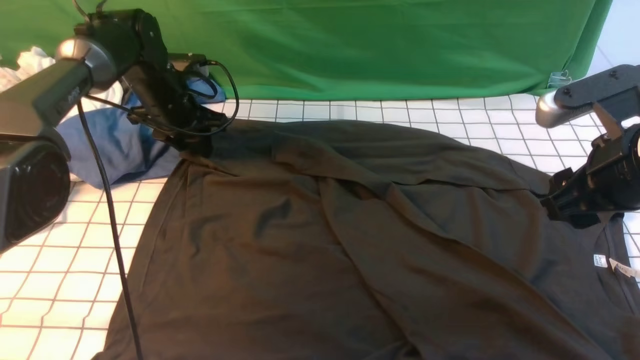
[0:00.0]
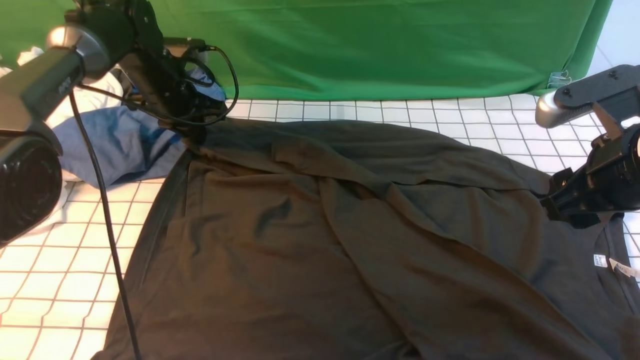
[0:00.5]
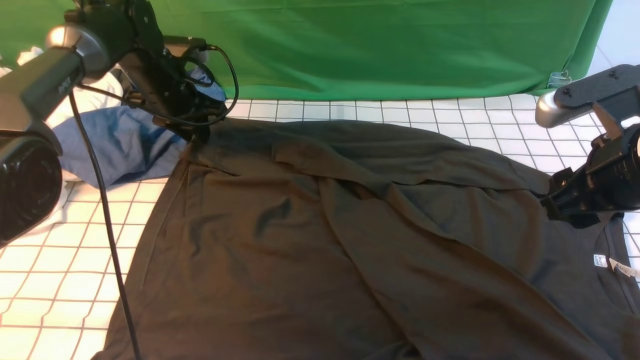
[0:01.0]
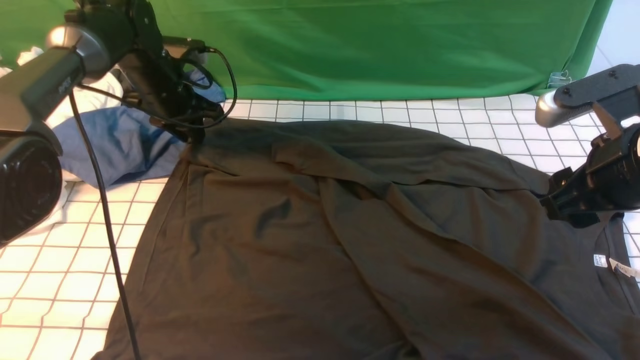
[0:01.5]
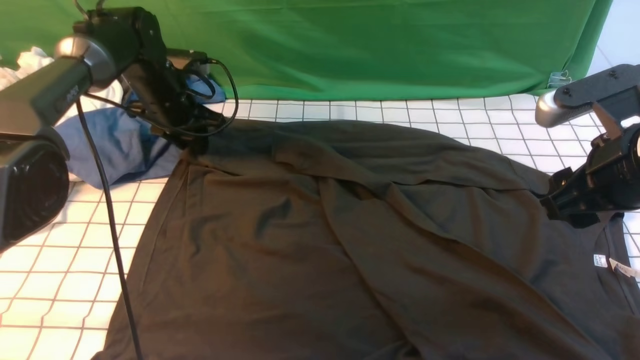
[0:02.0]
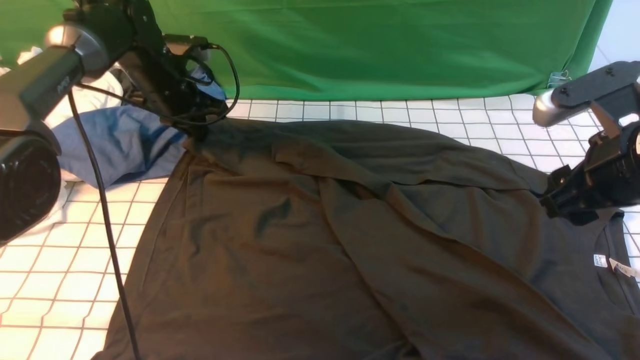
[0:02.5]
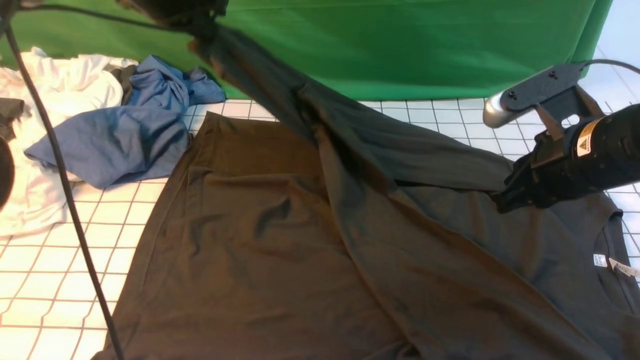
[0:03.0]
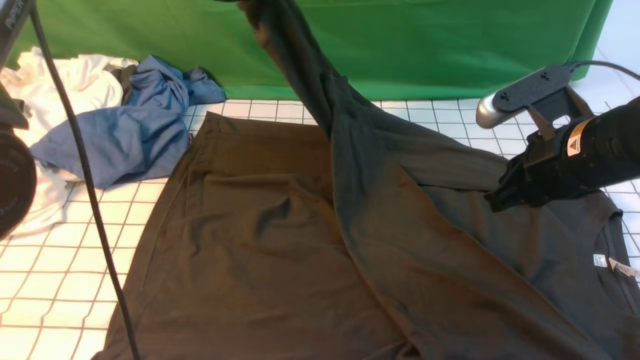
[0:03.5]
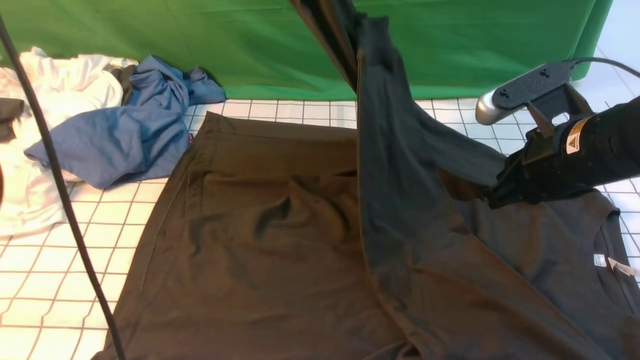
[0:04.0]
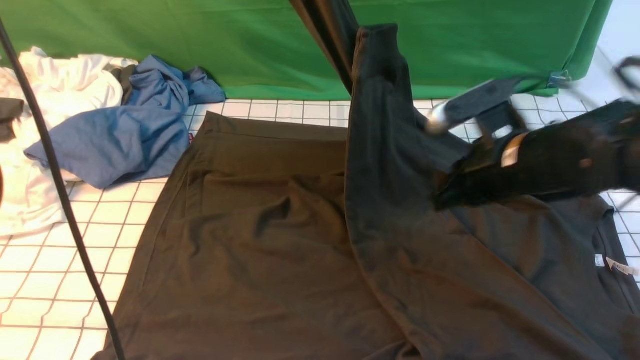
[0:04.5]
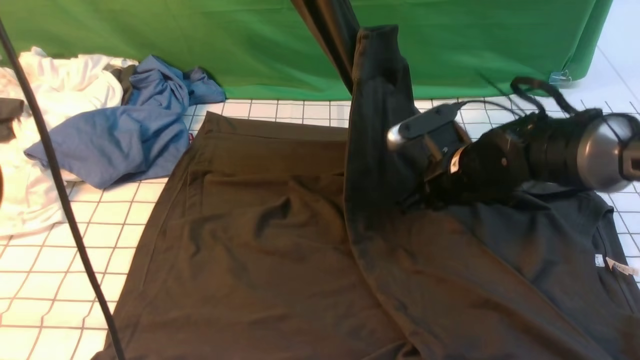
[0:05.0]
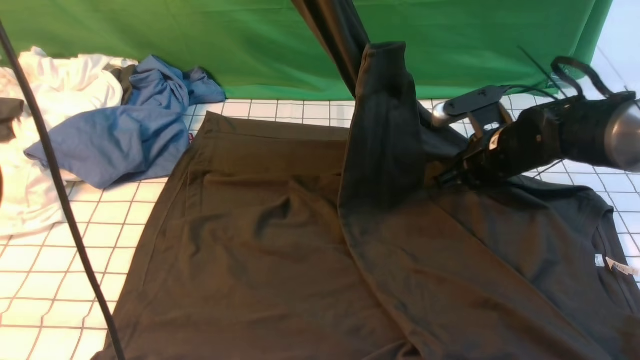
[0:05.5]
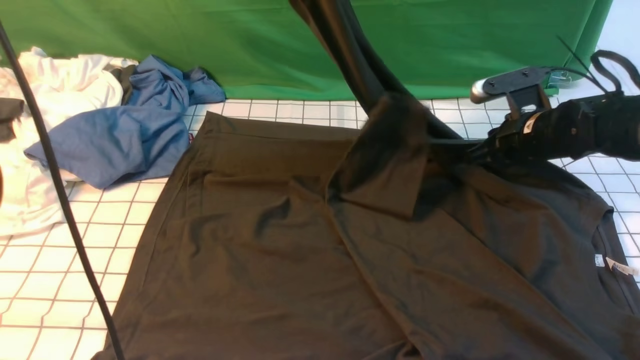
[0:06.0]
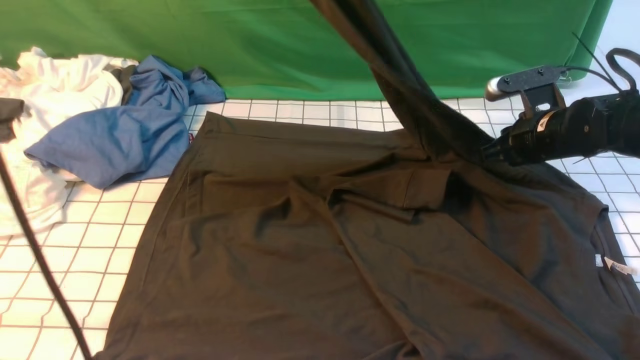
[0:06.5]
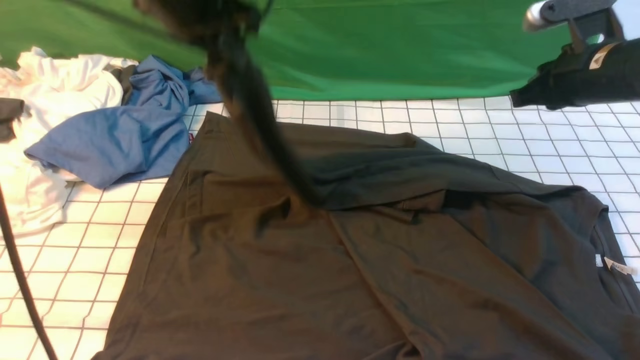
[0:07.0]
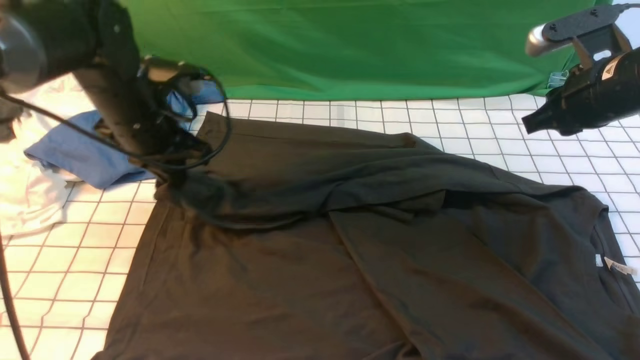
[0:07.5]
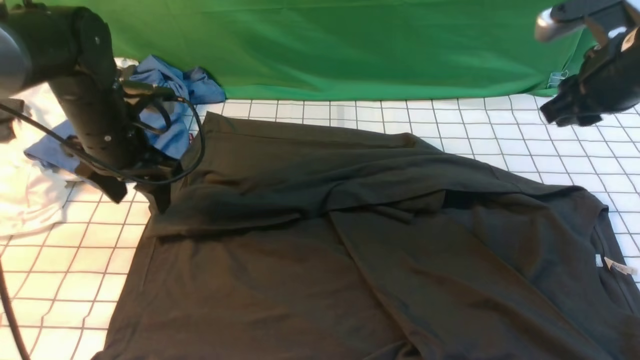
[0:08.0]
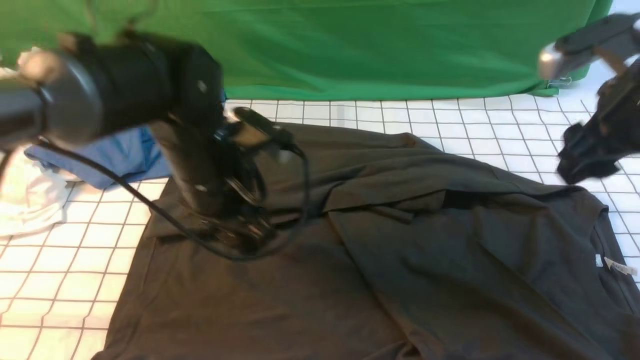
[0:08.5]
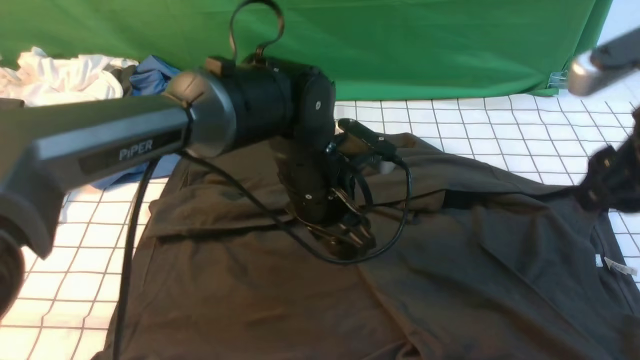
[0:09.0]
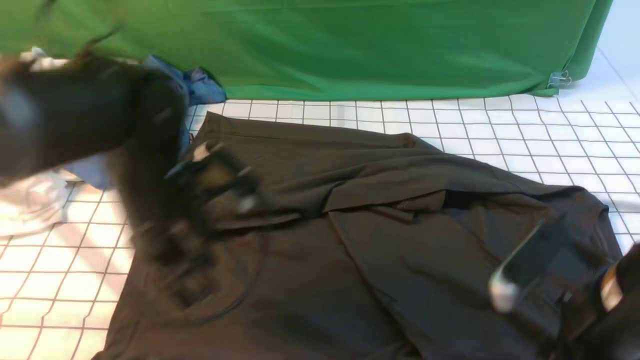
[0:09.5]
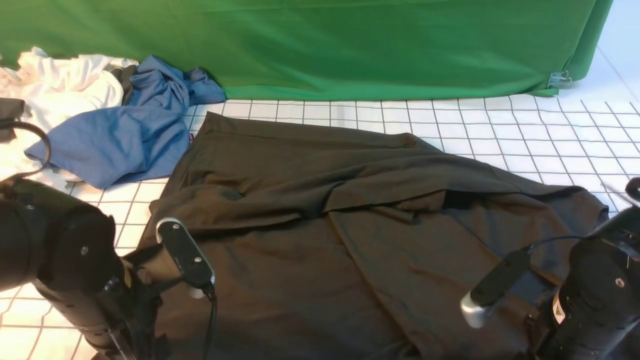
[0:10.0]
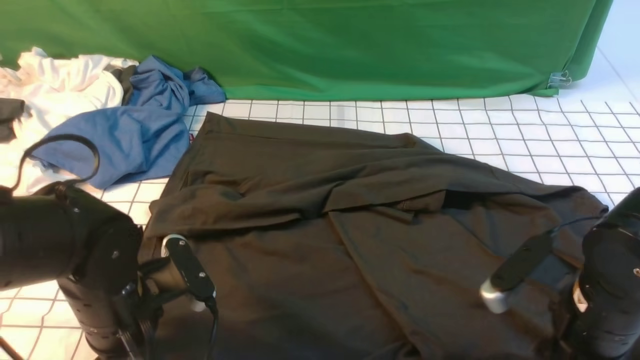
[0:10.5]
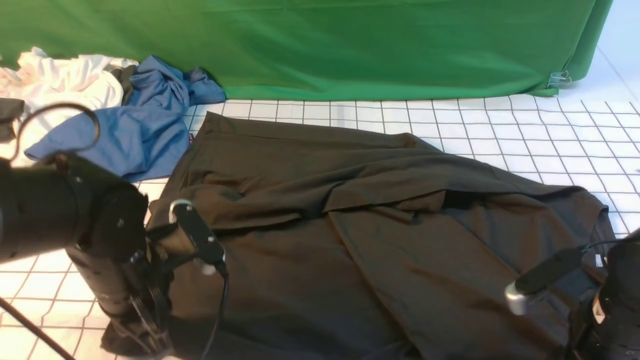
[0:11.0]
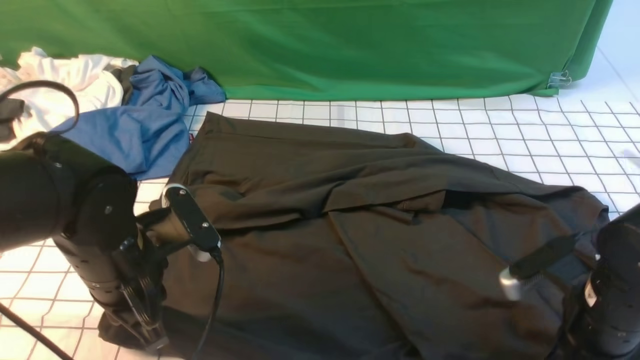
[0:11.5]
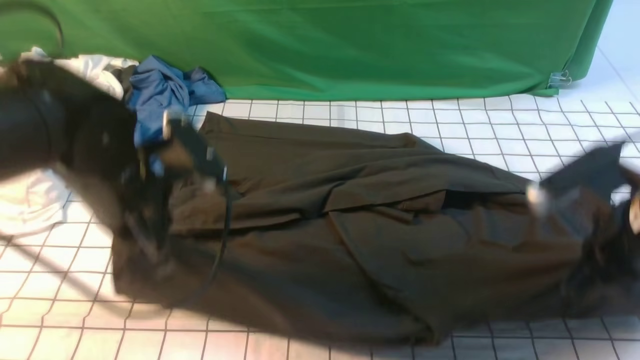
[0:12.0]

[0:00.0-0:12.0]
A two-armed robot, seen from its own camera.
Step, 0:00.0 to 0:02.5: use the left arm to clamp the cuff farthest from it.
Step, 0:03.0 to 0:08.0: use the left arm to drag and drop the cuff onto the cuff closest to the left arm.
Step, 0:08.5 to 0:11.5: use both arms simultaneously to clamp the lower edge of the clothing fabric.
0:00.0 to 0:02.0: The grippers make only small movements.
0:02.0 to 0:04.0: The left gripper shifts approximately 30 cm upward, and closes up; the right gripper moves some 5 cm, and closes its fingers.
0:04.0 to 0:06.0: The right gripper goes approximately 15 cm forward and downward.
0:06.0 to 0:08.0: The right gripper travels upward and backward by roughly 15 cm. The left gripper heads downward, covering some 25 cm, and opens its fingers.
0:08.0 to 0:10.0: The right gripper travels backward, downward and to the left by roughly 25 cm, and opens its fingers, while the left gripper moves backward, approximately 15 cm, and travels to the right and back again, approximately 20 cm each way.
0:10.0 to 0:12.0: Both grippers move upward and forward, approximately 10 cm. The left gripper closes its fingers, while the right gripper closes.

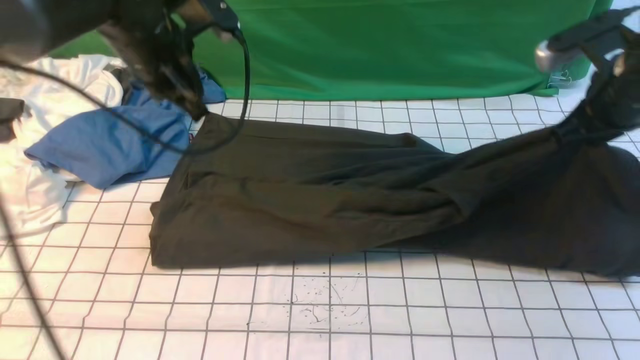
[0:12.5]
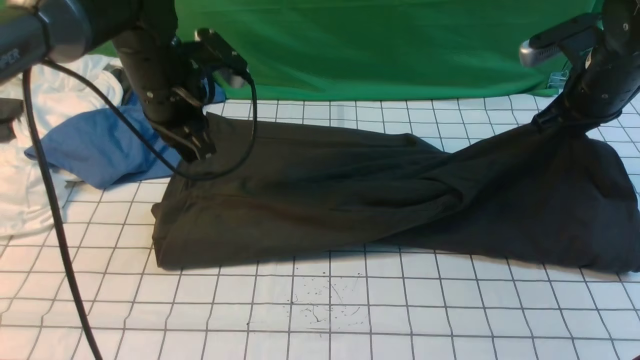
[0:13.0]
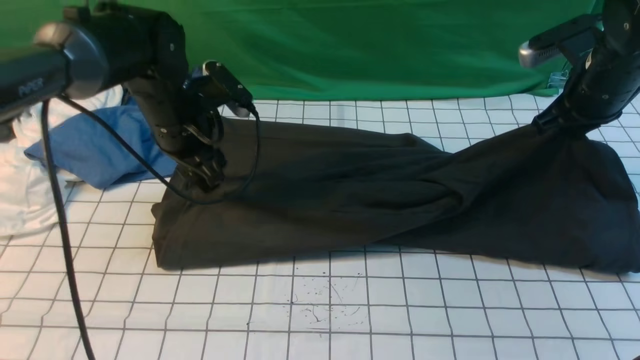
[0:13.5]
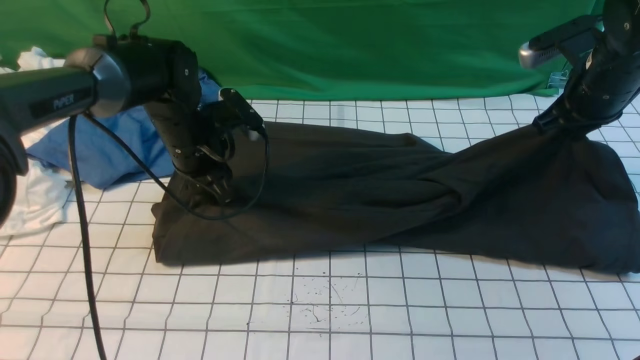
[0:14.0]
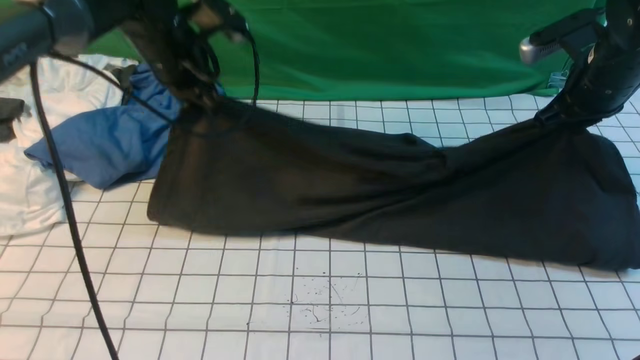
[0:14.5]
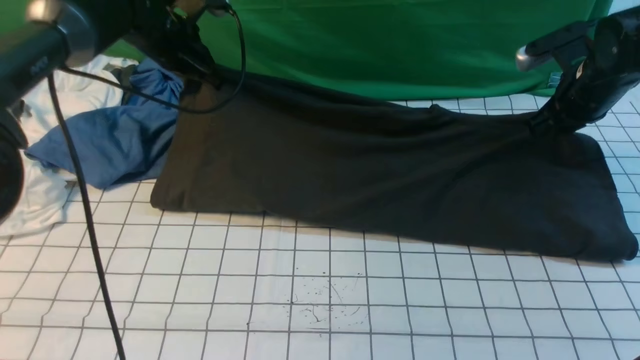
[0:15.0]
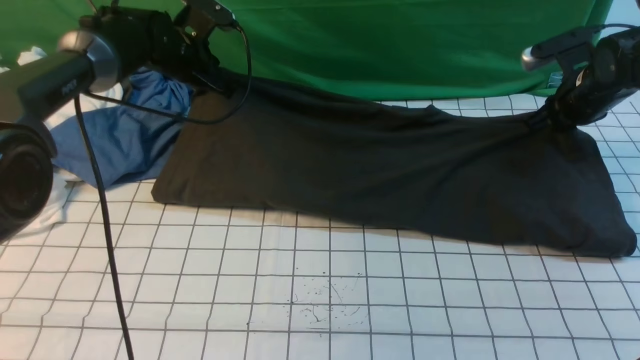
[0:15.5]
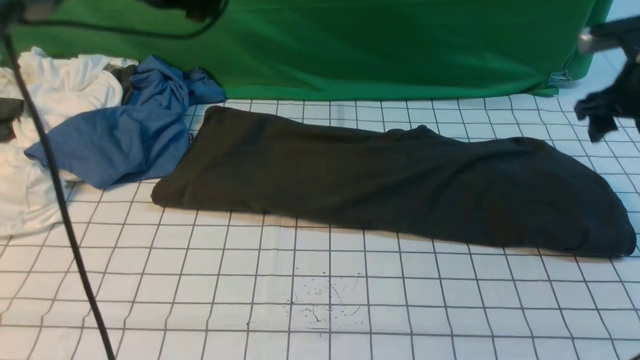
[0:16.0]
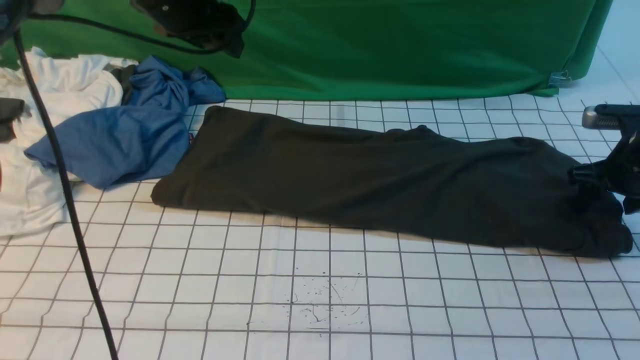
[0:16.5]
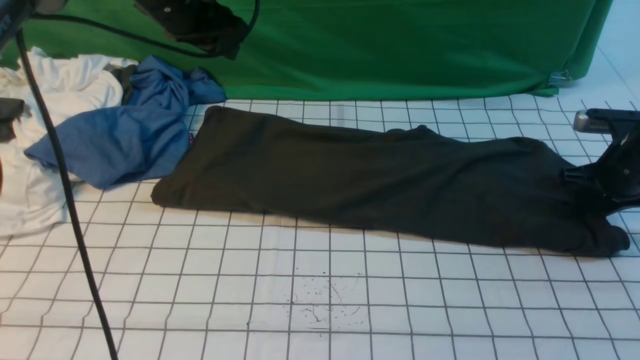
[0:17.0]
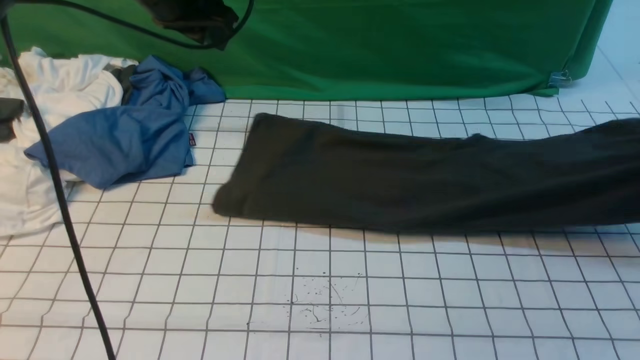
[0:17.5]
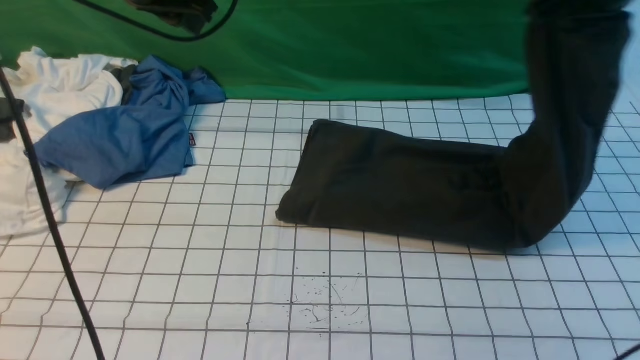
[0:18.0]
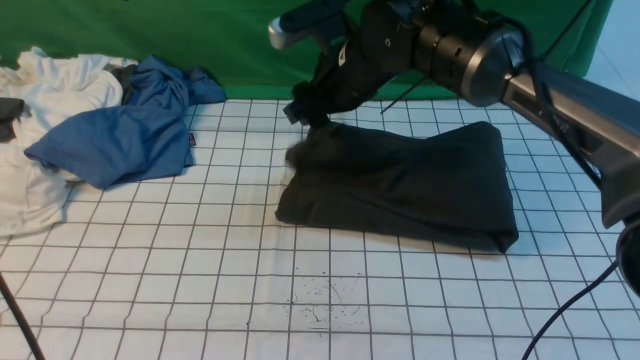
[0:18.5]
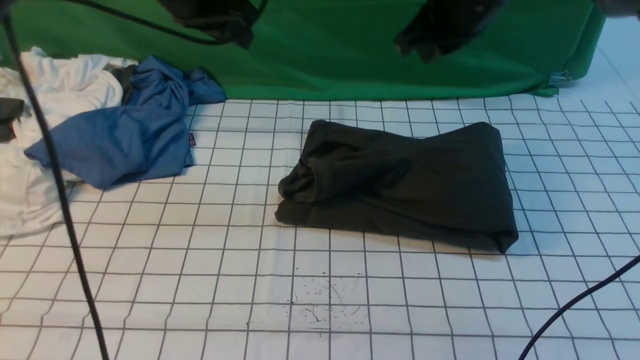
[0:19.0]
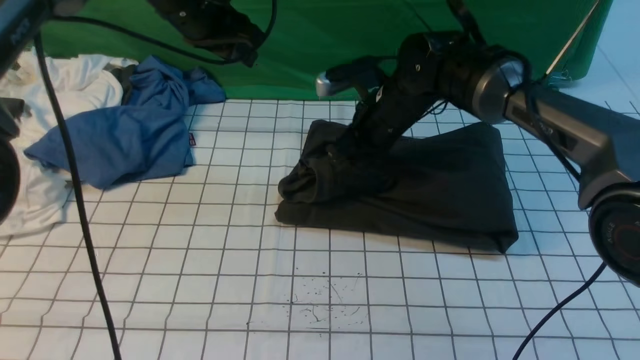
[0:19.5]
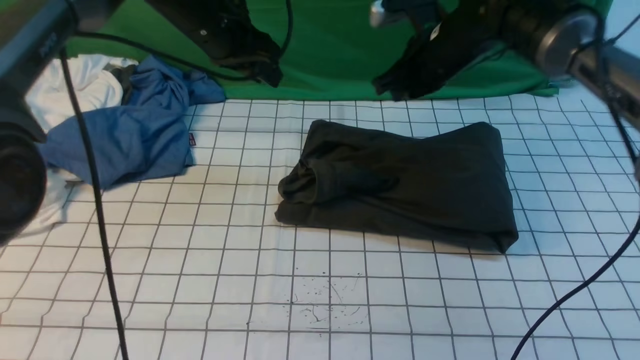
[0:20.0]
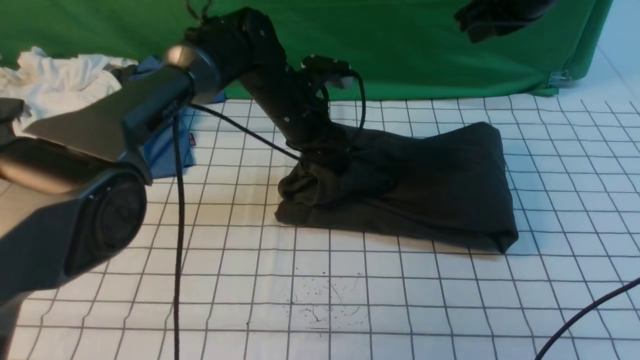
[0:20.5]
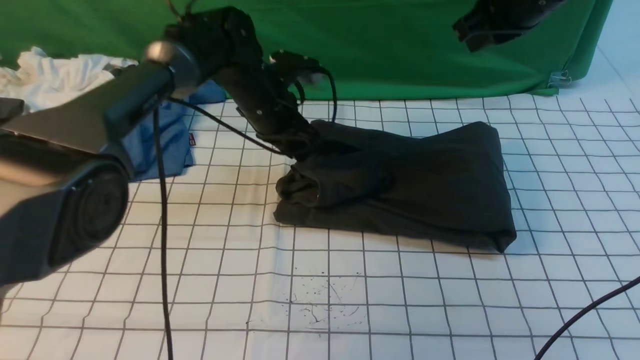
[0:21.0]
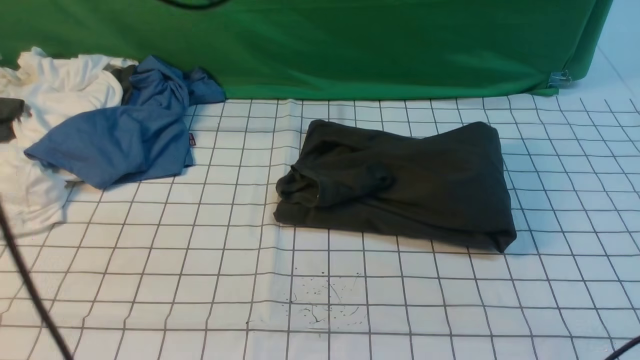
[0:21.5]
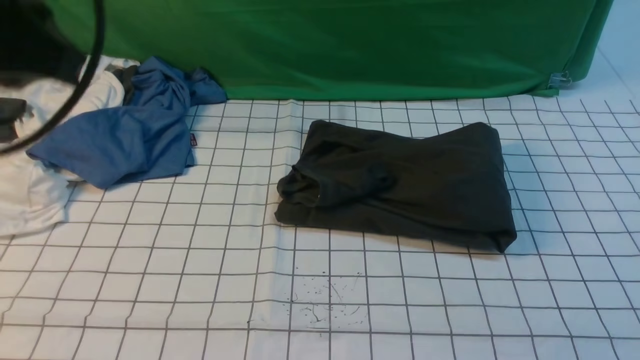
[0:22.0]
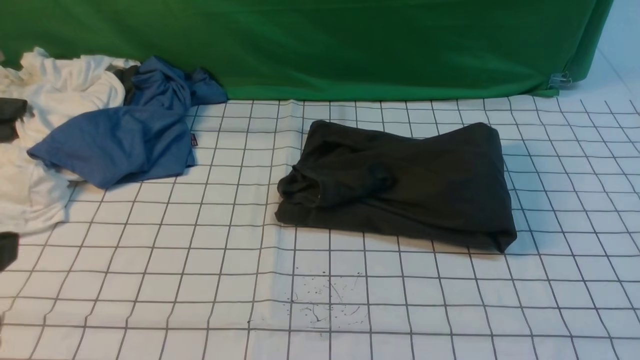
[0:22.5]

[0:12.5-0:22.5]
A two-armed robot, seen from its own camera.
Step, 0:12.5 to 0:15.5: use both arms to drag the lower edge of the fabric forward and fold it over the upper edge.
Step, 0:16.0 to 0:17.0: use the right arm to clamp the right edge of the fabric.
Step, 0:18.0 to 0:18.5: use the right arm to drag the right edge of the fabric to the left and folds it over the left edge.
0:12.5 to 0:14.5: Both grippers move forward, some 5 cm. The left gripper moves roughly 10 cm downward and comes back, and opens, then closes again.
0:14.5 to 0:16.5: The left gripper shifts some 5 cm upward, and opens. Meanwhile the right gripper goes roughly 15 cm downward and to the right, and opens.
0:16.5 to 0:18.5: The right gripper shifts about 35 cm to the left and upward, and closes, then reopens. The left gripper goes approximately 10 cm to the left and upward, and closes.
0:18.5 to 0:20.5: The right gripper goes some 15 cm to the right, travels downward and back again, approximately 10 cm each way, and closes up. Meanwhile the left gripper shifts roughly 30 cm downward and to the right.
0:20.5 to 0:22.5: The right gripper moves backward, about 35 cm. The left gripper moves backward and to the left, some 40 cm.
